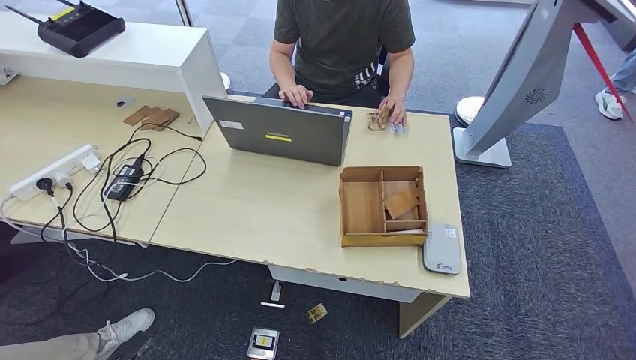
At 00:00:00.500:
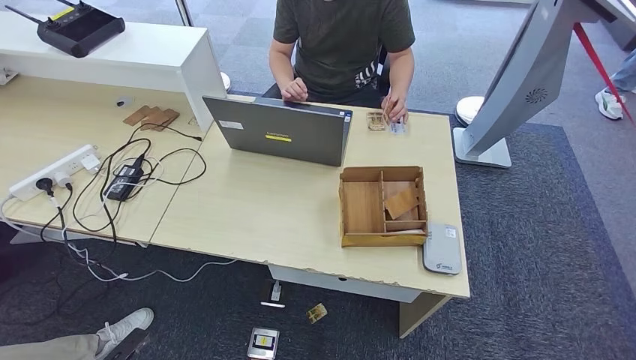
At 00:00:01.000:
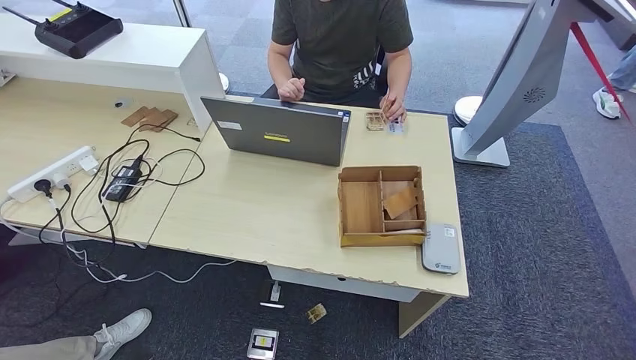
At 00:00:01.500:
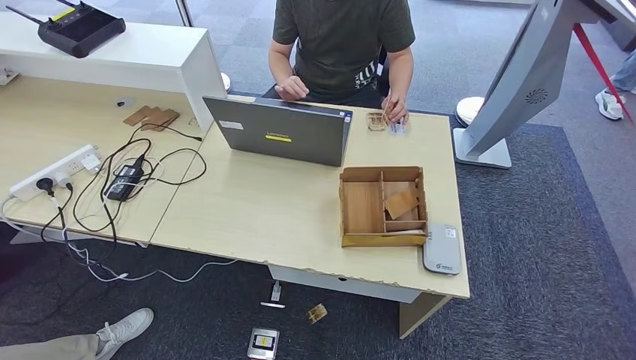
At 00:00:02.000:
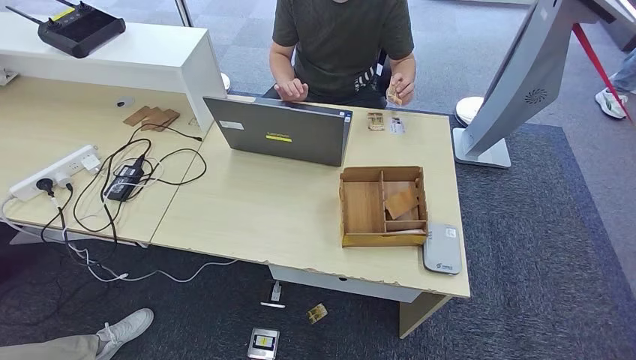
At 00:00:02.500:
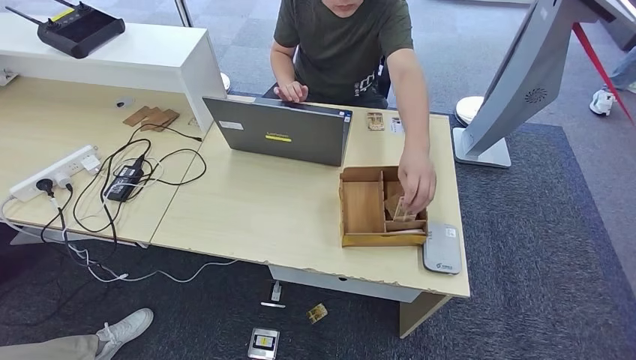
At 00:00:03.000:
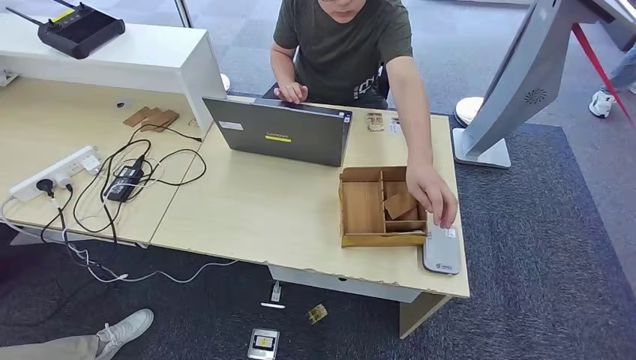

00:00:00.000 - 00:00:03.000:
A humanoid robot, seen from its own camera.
Step, 00:00:00.000 - 00:00:02.500: Hand the room key to the person.
00:00:00.000 - 00:00:01.500: The left hand ends up about 5 cm from where it was.
00:00:01.500 - 00:00:03.000: The left hand moves to the right, about 25 cm. Meanwhile the right hand is displaced to the left by some 5 cm.

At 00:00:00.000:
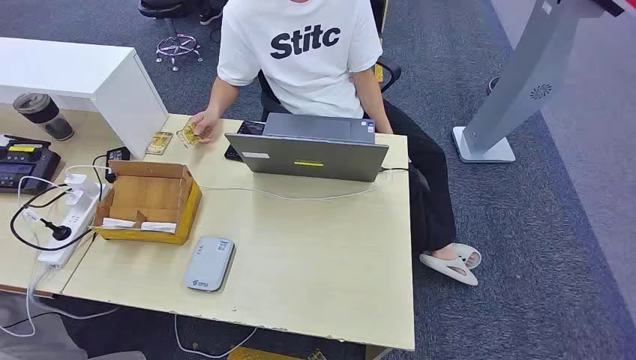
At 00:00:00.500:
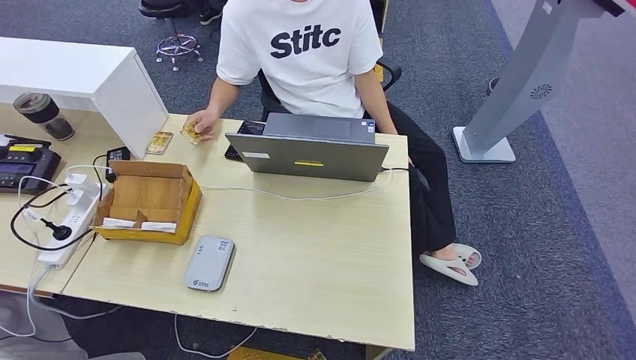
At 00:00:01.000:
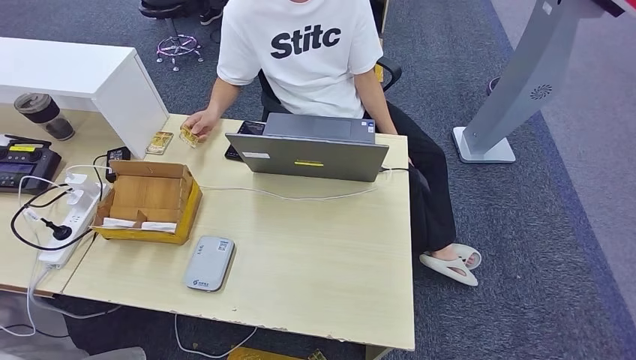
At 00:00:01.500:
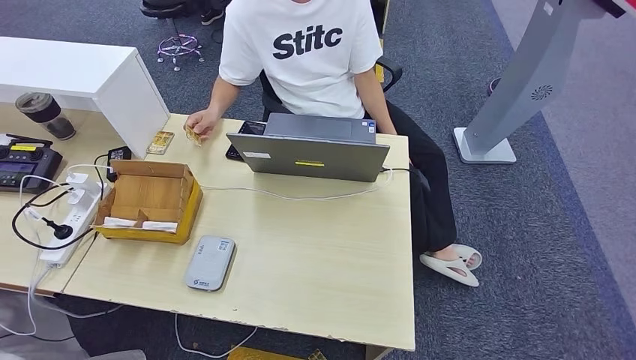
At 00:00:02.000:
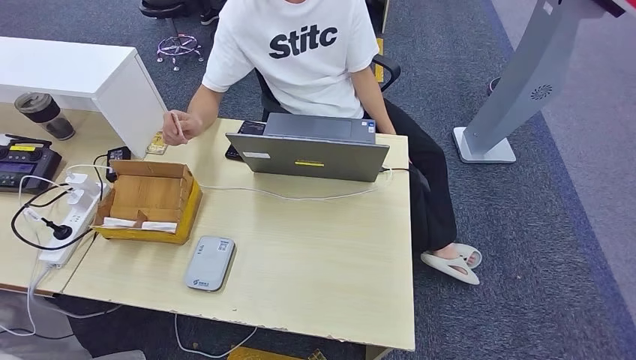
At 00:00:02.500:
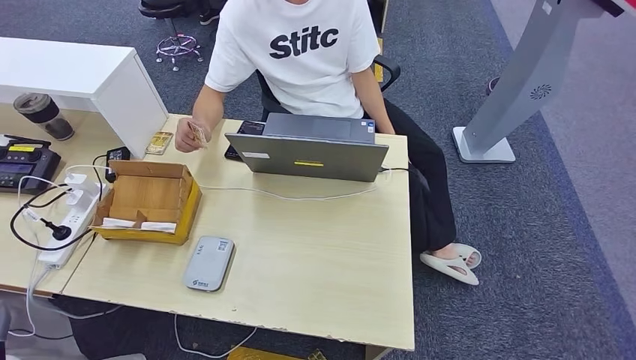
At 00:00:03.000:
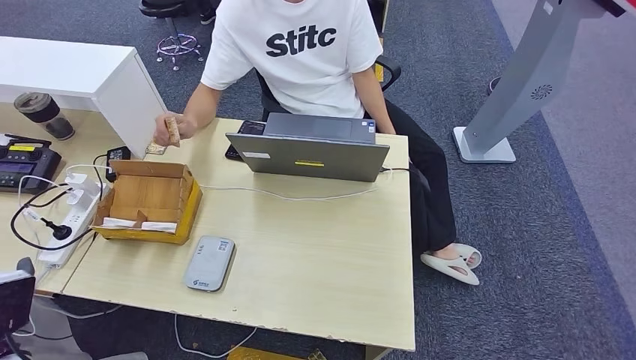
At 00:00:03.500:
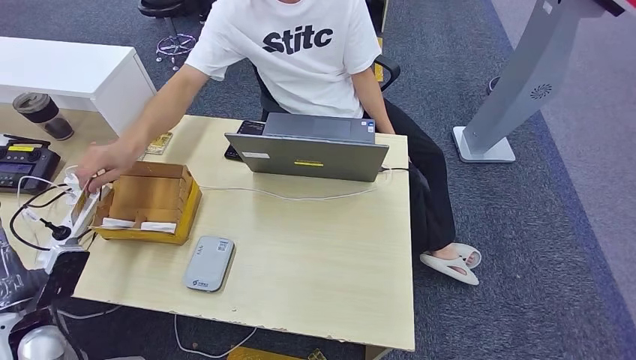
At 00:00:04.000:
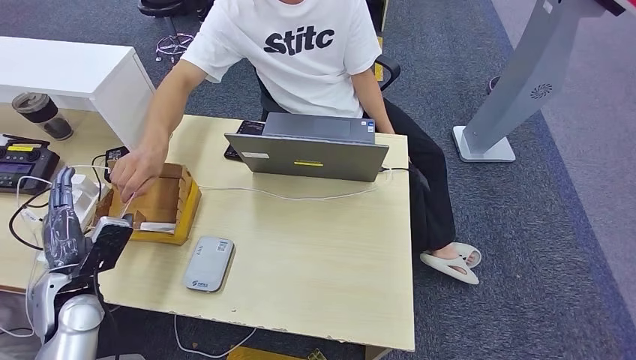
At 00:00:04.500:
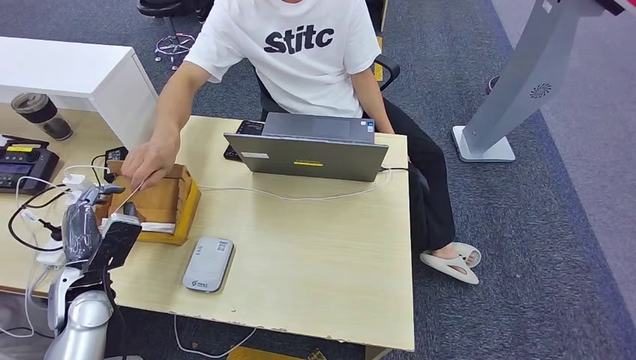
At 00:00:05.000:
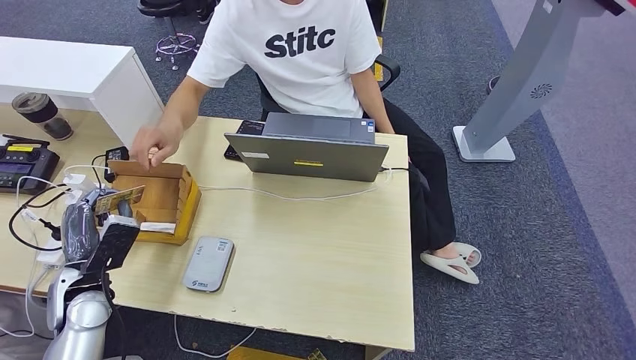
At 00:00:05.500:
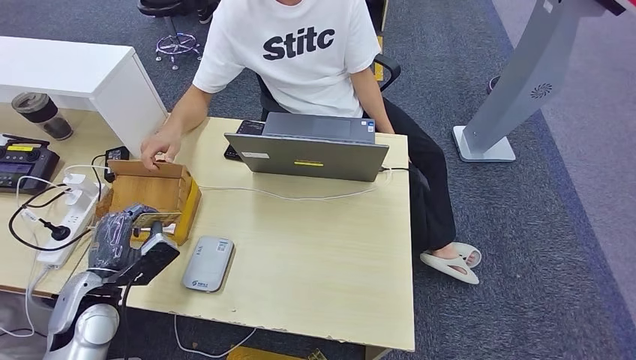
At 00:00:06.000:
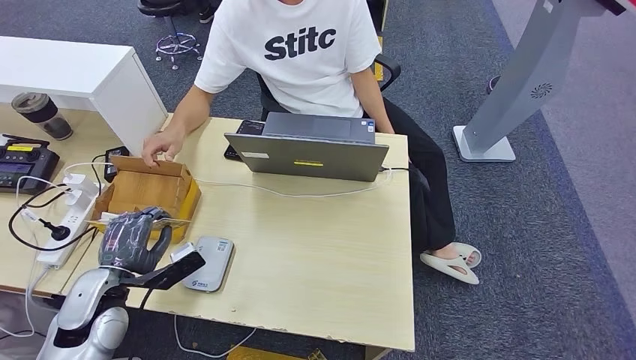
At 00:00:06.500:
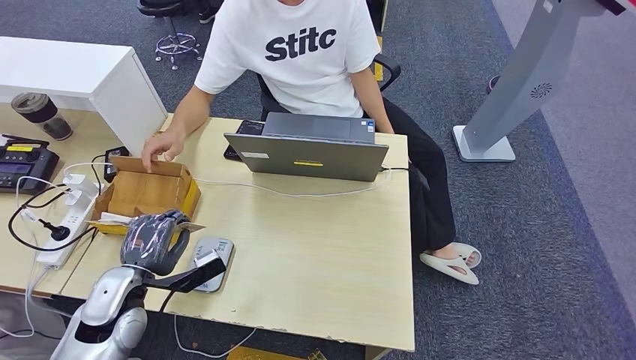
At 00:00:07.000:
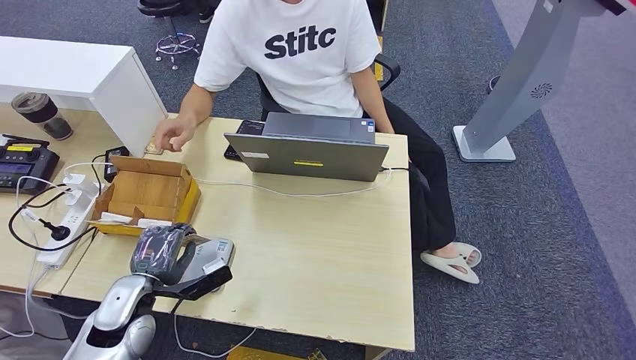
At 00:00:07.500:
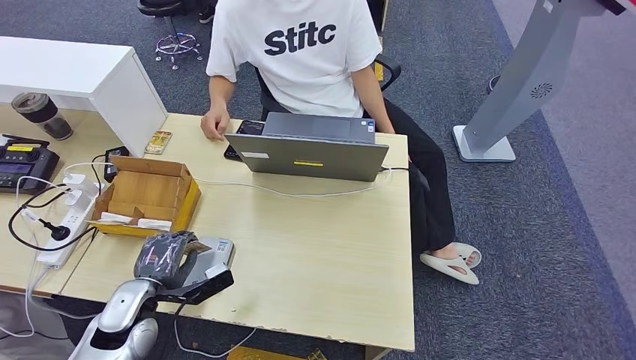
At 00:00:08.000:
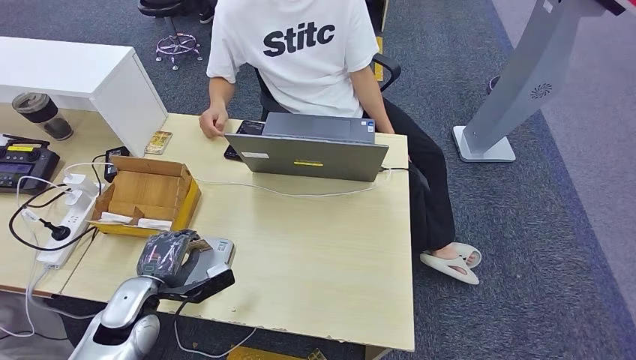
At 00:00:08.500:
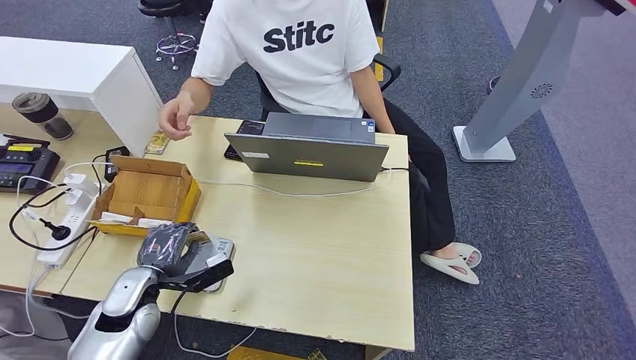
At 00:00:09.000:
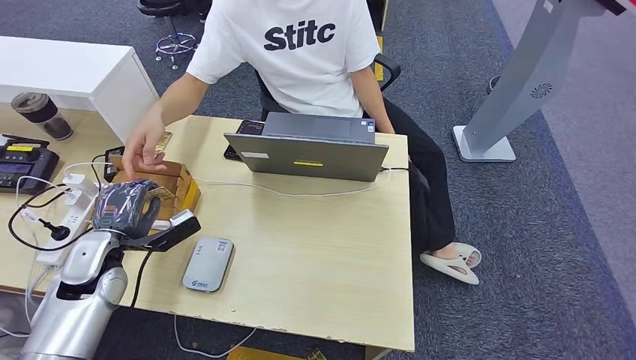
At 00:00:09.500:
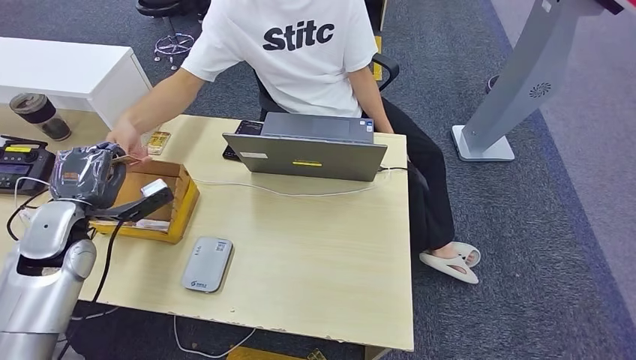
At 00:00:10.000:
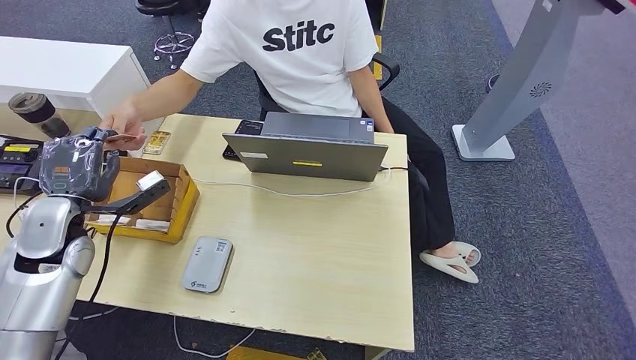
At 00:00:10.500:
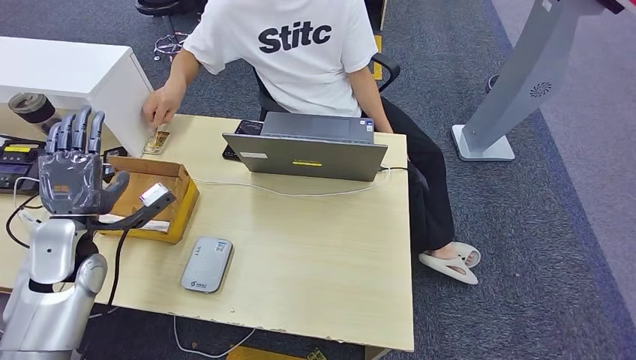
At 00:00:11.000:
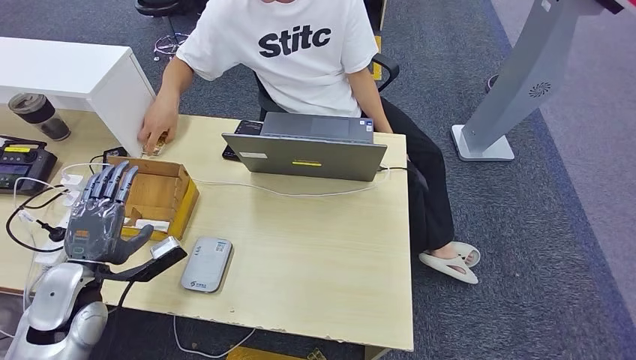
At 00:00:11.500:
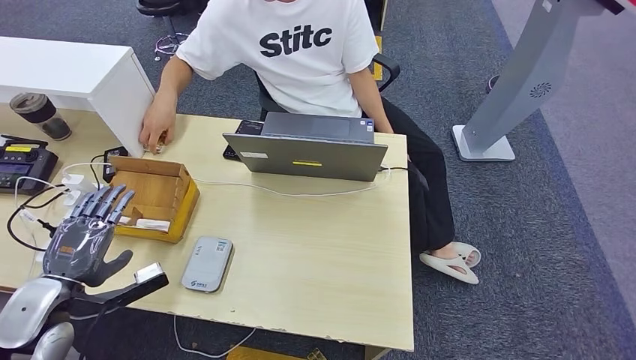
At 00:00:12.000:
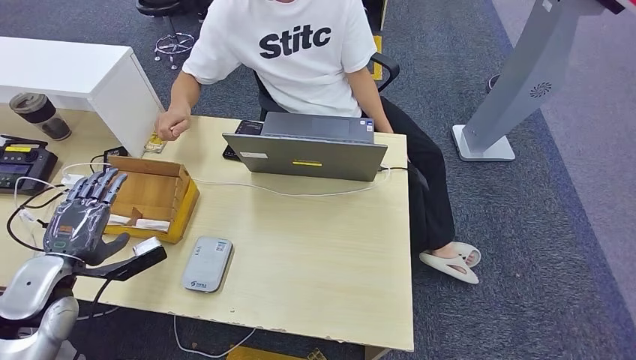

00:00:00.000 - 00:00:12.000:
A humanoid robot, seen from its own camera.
Step, 00:00:00.000 - 00:00:05.000: Take the ID card from the person's hand.
Step, 00:00:05.500 - 00:00:07.000: Place the ID card on the card reader.
Step, 00:00:07.500 - 00:00:10.500: Hand the ID card to the person.
00:00:02.000 - 00:00:04.000: The left hand moves forward, about 20 cm.
00:00:04.000 - 00:00:06.000: The left hand shifts some 5 cm to the right.
00:00:06.000 - 00:00:08.000: The left hand travels downward by roughly 5 cm.
00:00:08.000 - 00:00:10.000: The left hand goes some 20 cm upward, to the left and forward.
00:00:10.000 - 00:00:12.000: The left hand is displaced backward by roughly 10 cm.

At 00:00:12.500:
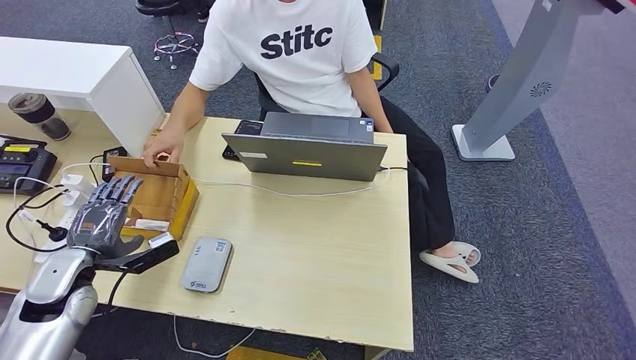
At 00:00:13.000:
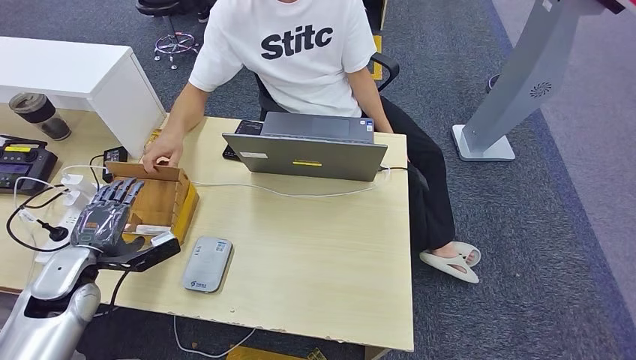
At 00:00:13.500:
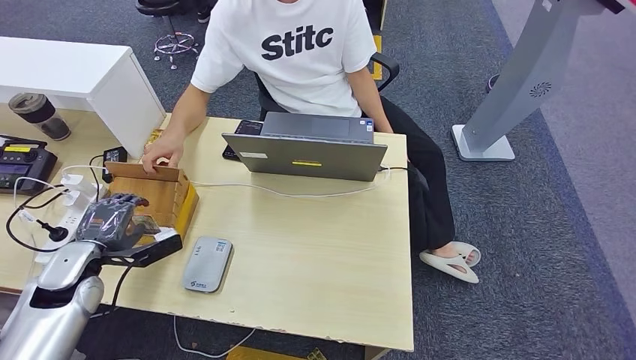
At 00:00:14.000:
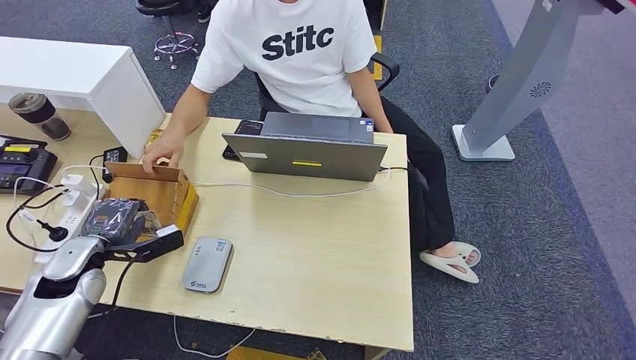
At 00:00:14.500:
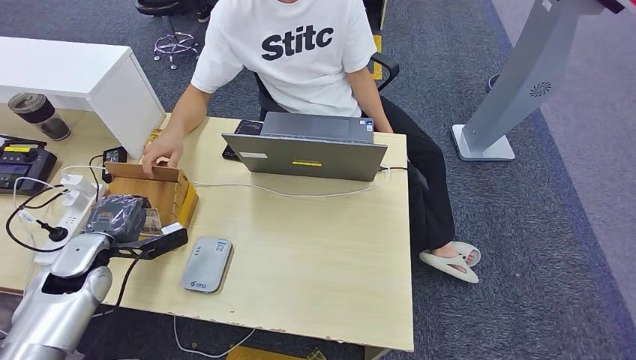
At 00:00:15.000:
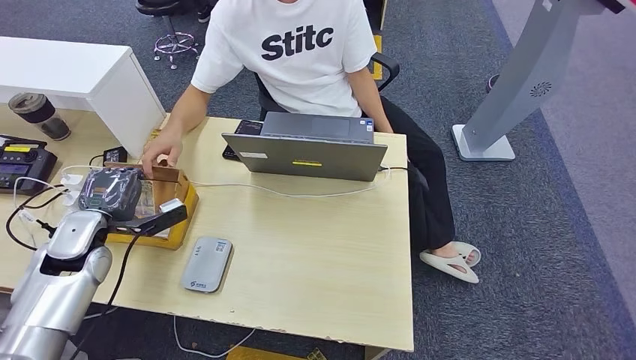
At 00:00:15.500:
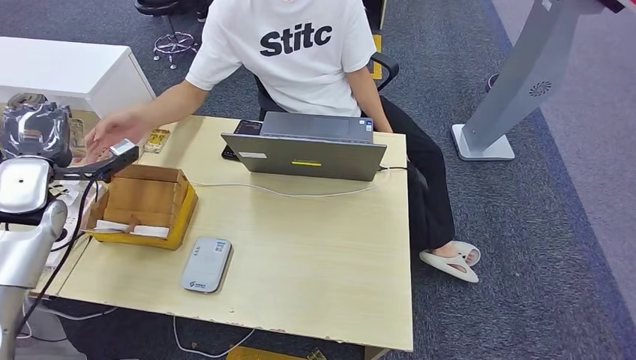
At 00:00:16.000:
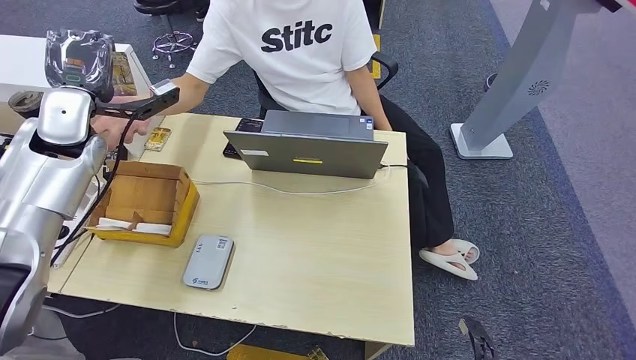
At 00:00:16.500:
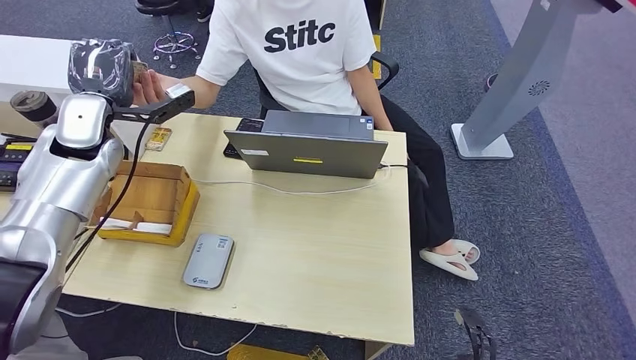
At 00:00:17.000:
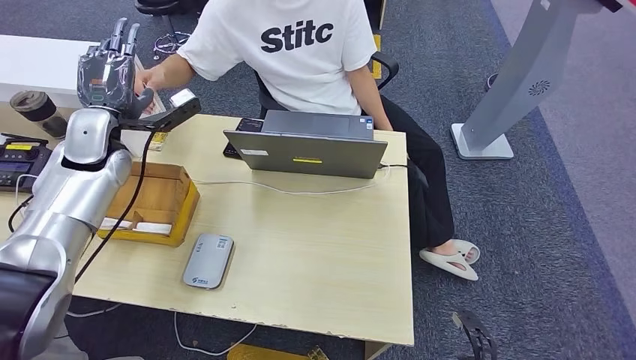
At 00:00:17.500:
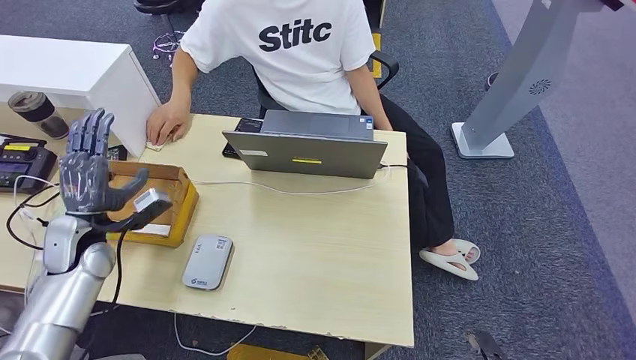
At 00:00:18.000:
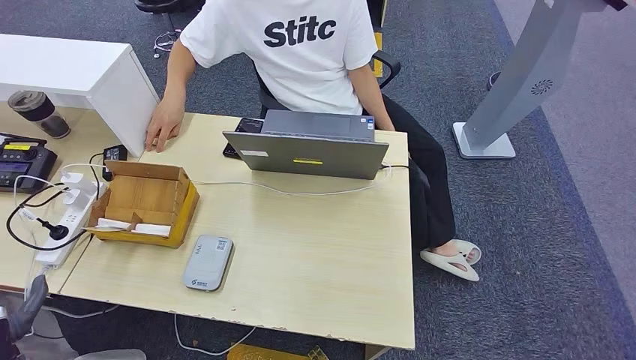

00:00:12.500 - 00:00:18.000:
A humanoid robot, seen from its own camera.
Step, 00:00:12.500 - 00:00:15.000: Pick up the room key from the key card box.
Step, 00:00:15.500 - 00:00:18.000: Hand the room key to the person.
00:00:12.500 - 00:00:14.500: The hands make only small movements.
00:00:16.000 - 00:00:18.000: The right hand goes approximately 15 cm backward. Meanwhile the left hand moves backward and downward, about 40 cm.
